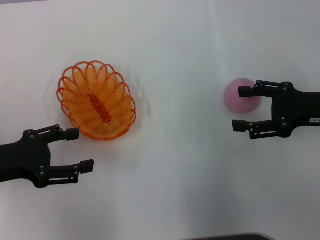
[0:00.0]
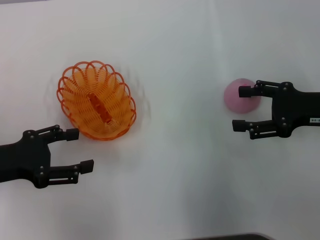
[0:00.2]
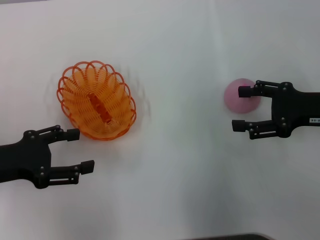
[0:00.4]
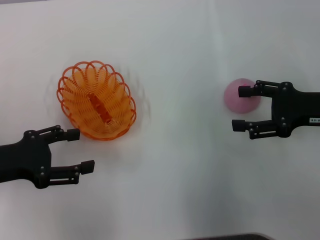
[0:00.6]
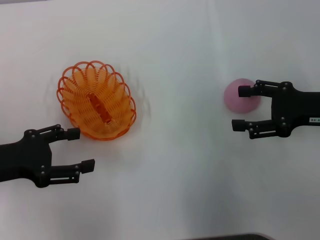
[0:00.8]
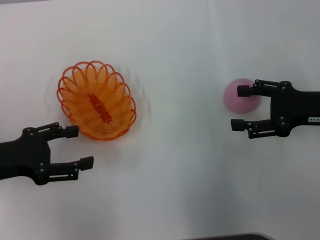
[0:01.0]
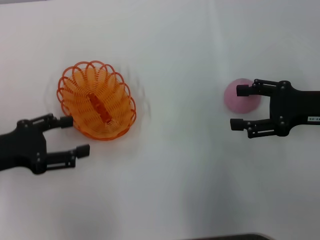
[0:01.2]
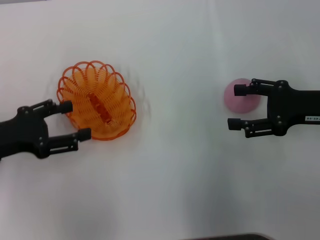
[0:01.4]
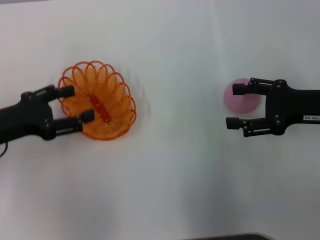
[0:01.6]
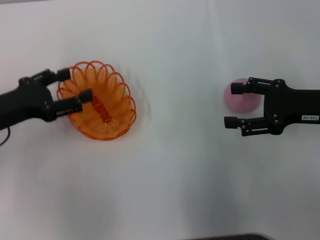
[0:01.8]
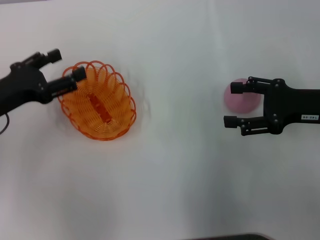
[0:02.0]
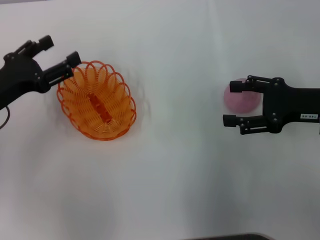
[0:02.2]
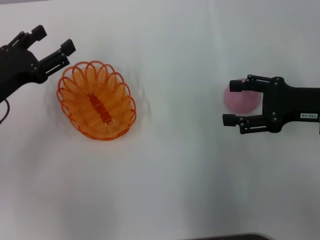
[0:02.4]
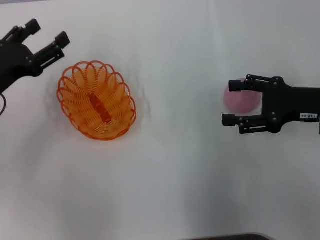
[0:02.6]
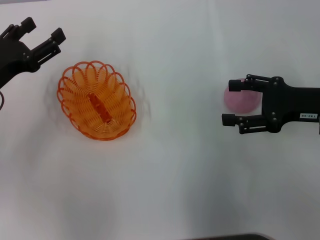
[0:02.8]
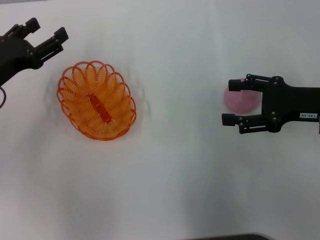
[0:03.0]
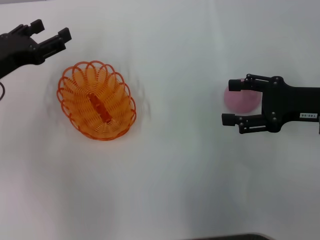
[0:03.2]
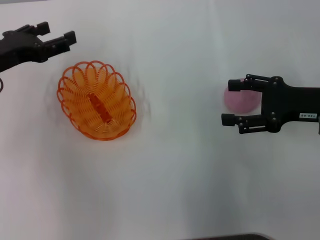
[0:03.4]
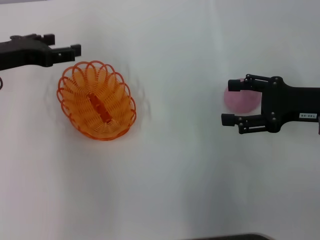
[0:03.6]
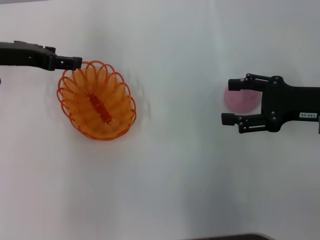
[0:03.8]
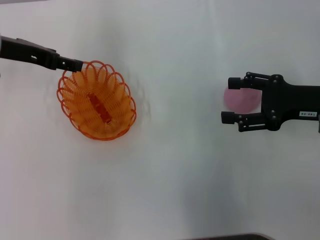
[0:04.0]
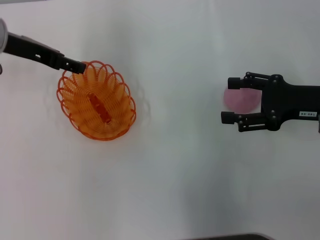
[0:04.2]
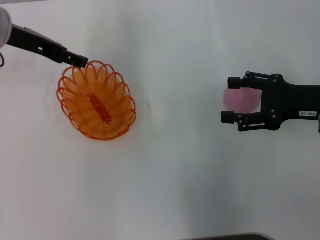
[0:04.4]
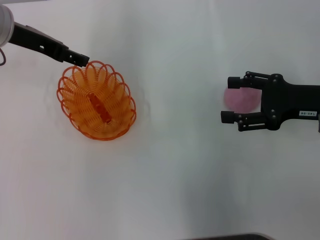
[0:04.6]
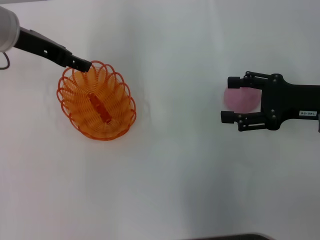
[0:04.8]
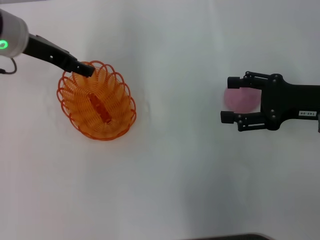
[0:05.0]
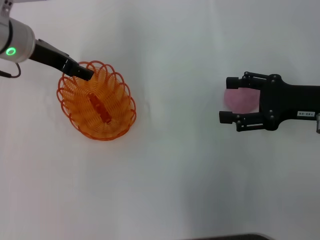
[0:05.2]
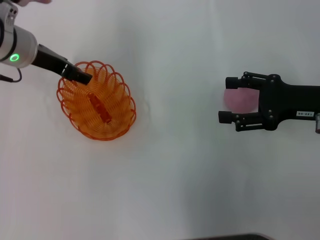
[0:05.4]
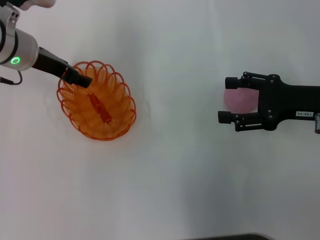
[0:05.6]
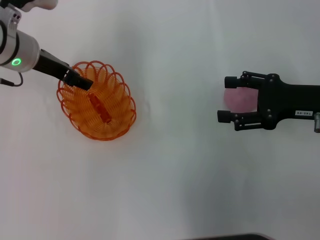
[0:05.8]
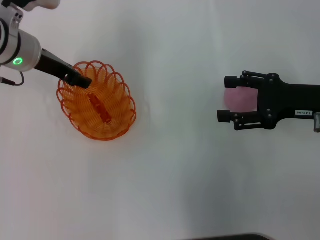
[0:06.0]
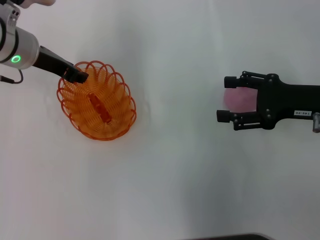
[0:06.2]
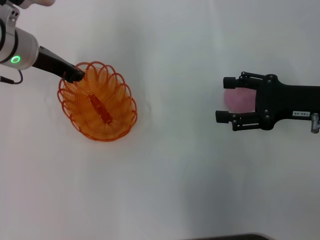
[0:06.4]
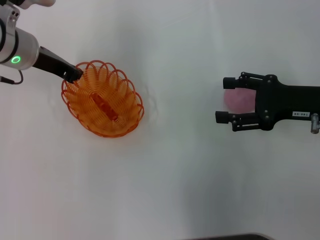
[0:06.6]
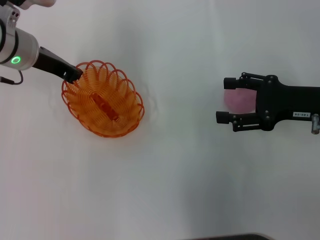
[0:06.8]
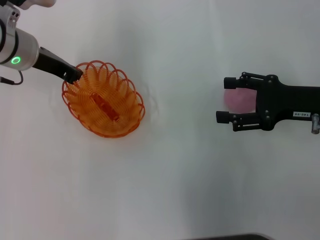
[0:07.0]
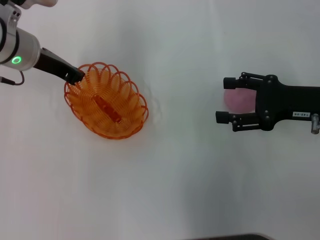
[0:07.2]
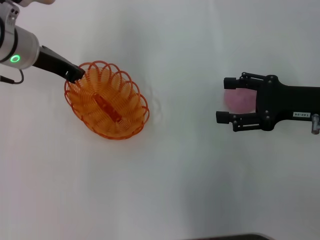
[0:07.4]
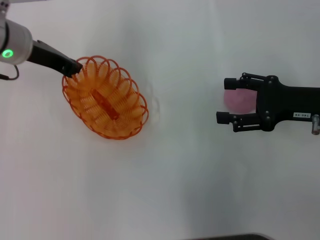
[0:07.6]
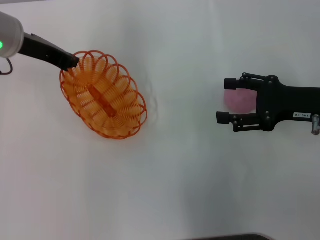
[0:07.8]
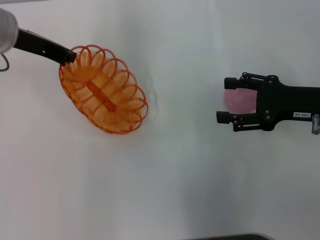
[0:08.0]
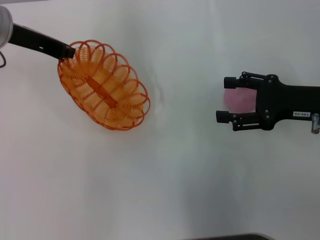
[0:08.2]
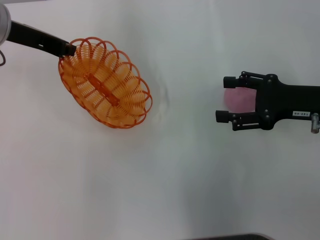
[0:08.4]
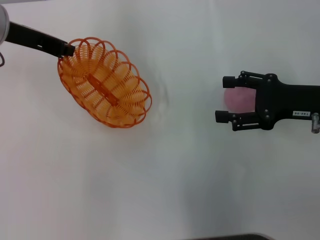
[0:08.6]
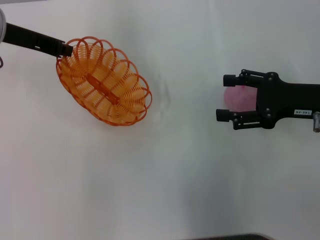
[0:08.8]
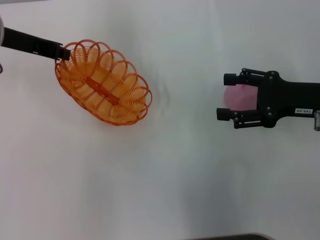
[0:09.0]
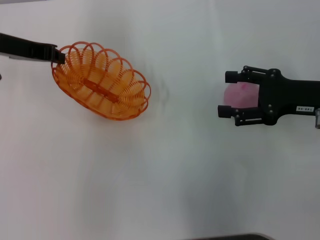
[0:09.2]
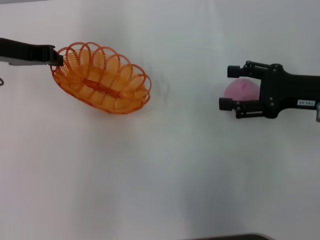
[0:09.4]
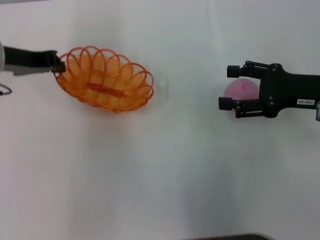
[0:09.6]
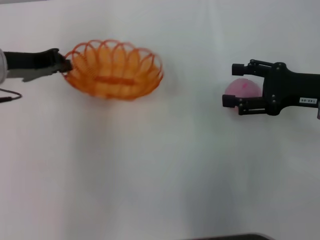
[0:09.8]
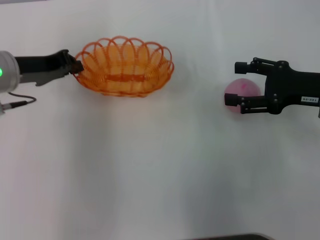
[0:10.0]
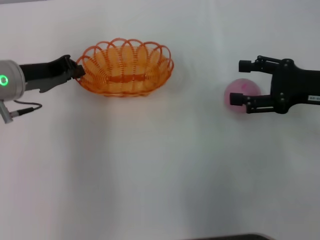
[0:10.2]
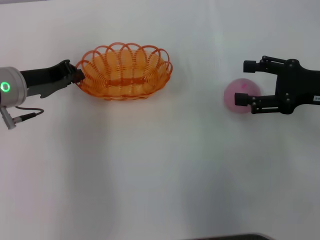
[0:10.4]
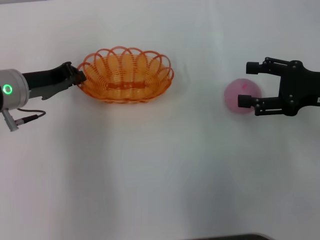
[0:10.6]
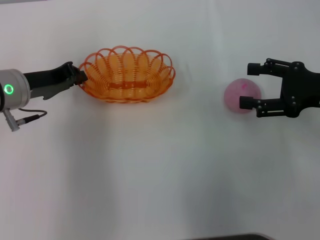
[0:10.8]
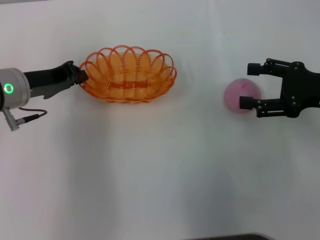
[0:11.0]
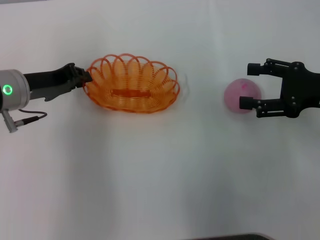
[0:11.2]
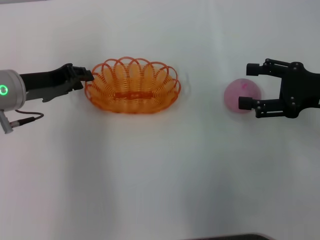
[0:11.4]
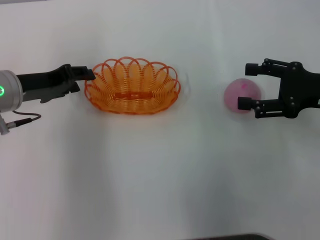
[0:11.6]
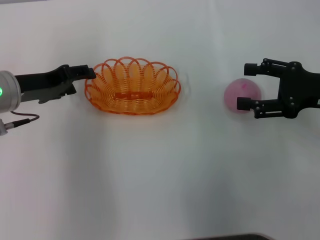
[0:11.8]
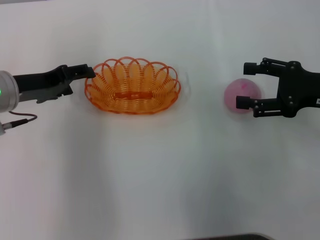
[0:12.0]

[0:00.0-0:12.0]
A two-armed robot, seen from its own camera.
Step, 0:00.0 to 0:07.4: Pick up the basket with the left gripper.
0:00.0 to 0:01.6: The grippers stay close to where they were, moving slightly.
0:03.0 to 0:04.4: The left gripper travels upward, forward and to the right by about 15 cm.
0:04.4 to 0:06.0: The left gripper travels downward by about 5 cm.
0:06.0 to 0:07.6: The left gripper closes.
0:07.6 to 0:09.0: The grippers stay close to where they were, moving slightly.
0:09.0 to 0:10.4: The left gripper goes approximately 10 cm downward.
0:10.4 to 0:12.0: The left gripper opens up.

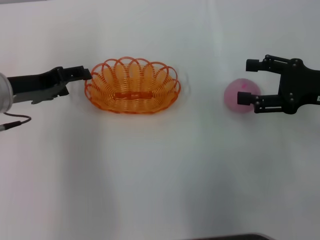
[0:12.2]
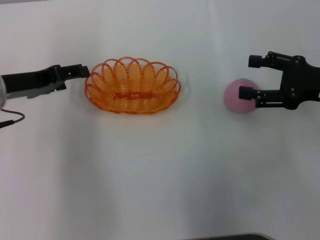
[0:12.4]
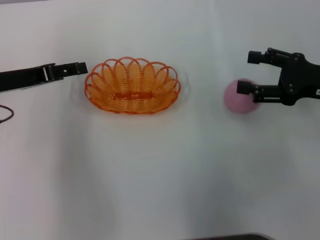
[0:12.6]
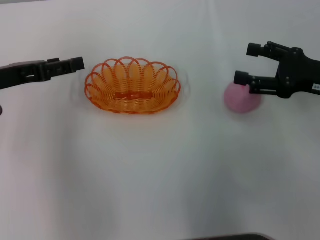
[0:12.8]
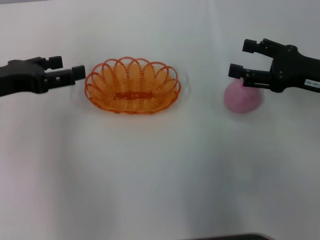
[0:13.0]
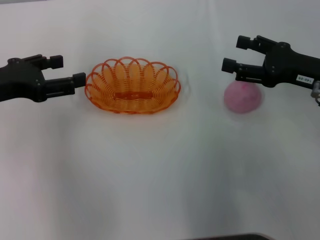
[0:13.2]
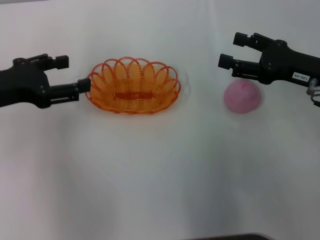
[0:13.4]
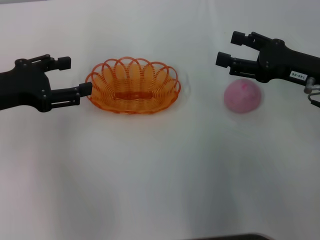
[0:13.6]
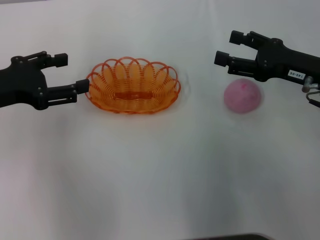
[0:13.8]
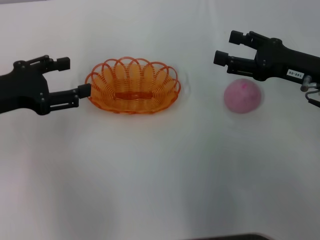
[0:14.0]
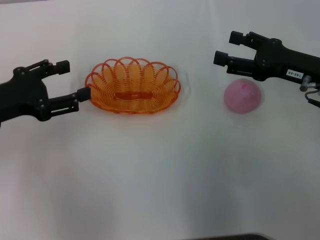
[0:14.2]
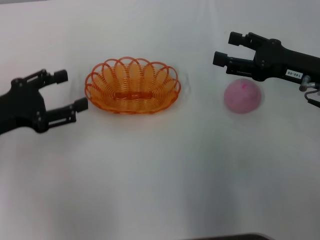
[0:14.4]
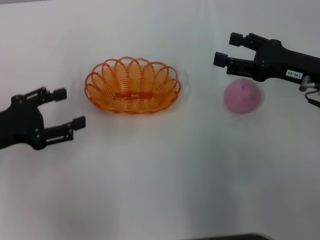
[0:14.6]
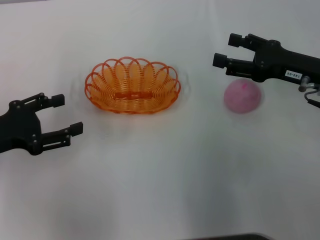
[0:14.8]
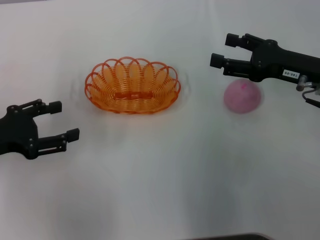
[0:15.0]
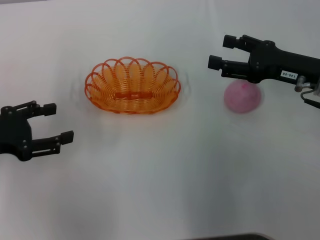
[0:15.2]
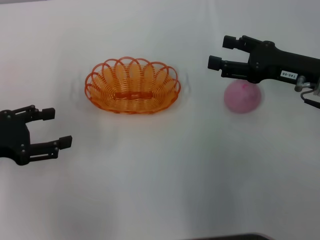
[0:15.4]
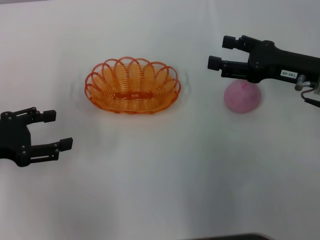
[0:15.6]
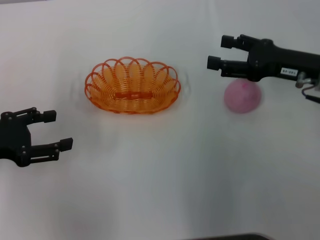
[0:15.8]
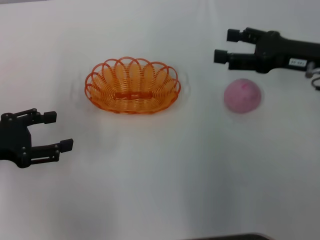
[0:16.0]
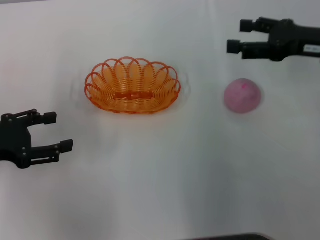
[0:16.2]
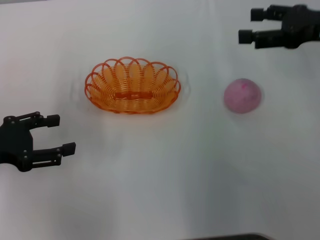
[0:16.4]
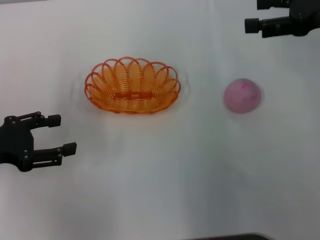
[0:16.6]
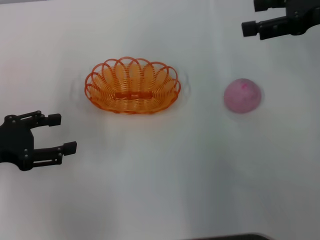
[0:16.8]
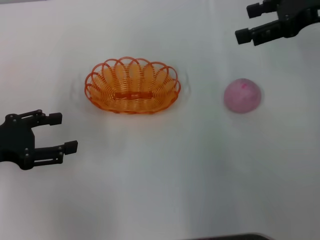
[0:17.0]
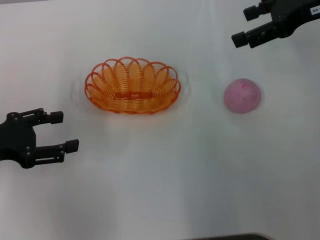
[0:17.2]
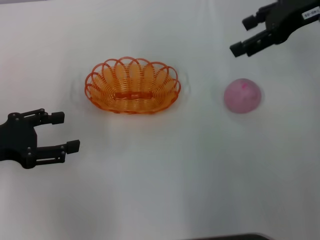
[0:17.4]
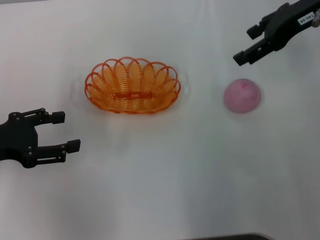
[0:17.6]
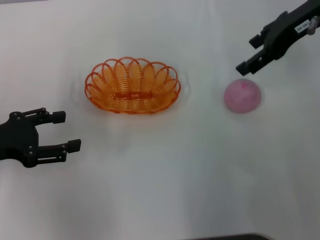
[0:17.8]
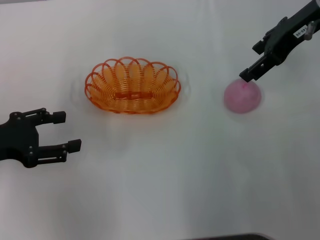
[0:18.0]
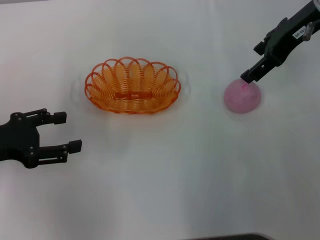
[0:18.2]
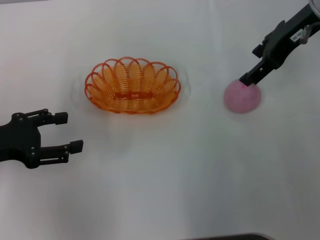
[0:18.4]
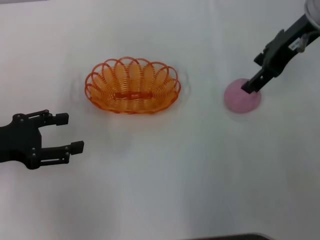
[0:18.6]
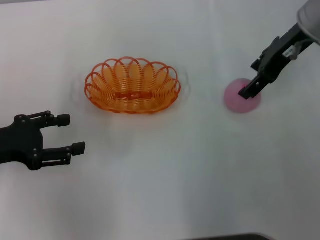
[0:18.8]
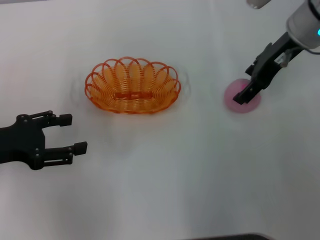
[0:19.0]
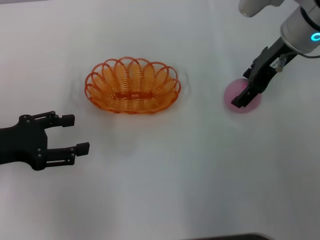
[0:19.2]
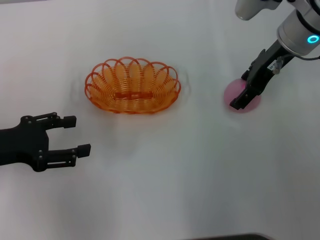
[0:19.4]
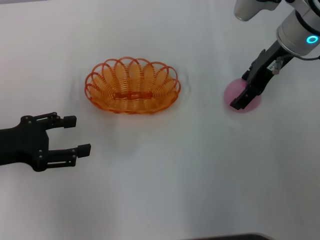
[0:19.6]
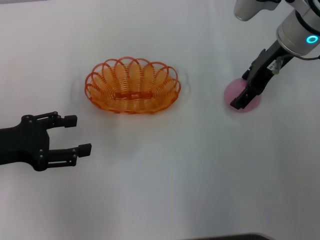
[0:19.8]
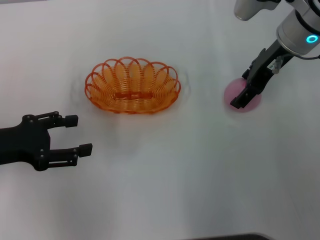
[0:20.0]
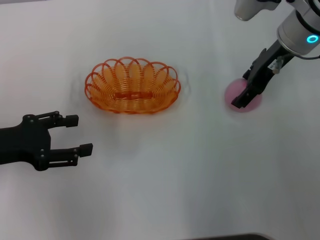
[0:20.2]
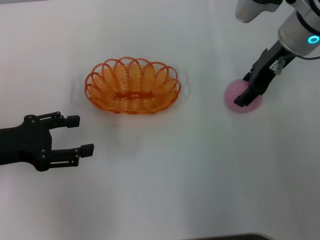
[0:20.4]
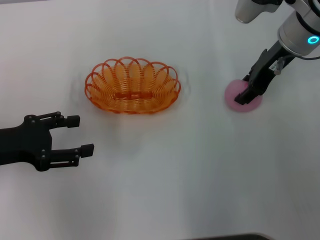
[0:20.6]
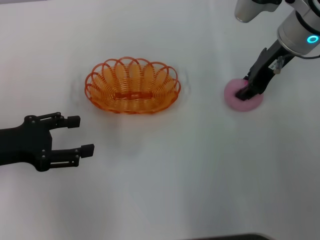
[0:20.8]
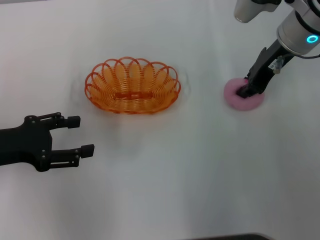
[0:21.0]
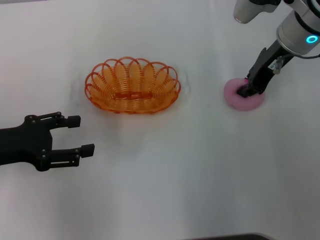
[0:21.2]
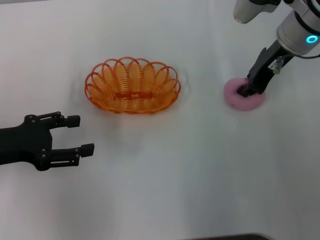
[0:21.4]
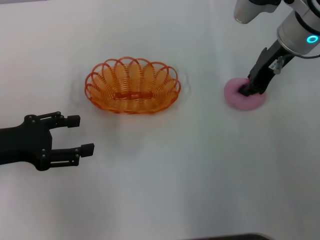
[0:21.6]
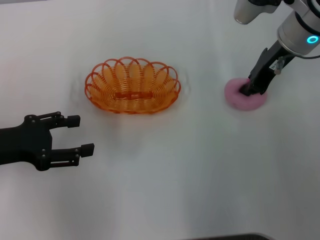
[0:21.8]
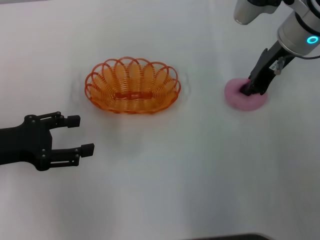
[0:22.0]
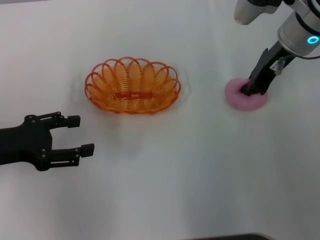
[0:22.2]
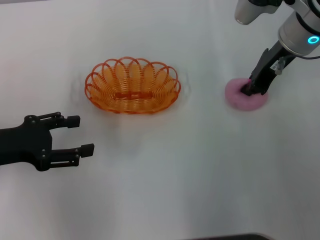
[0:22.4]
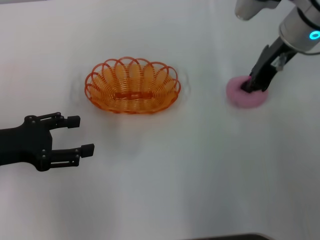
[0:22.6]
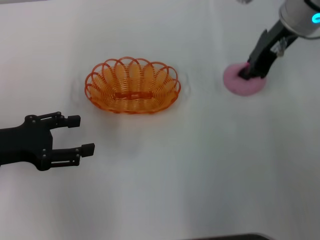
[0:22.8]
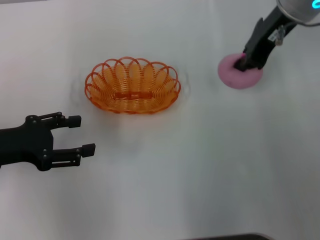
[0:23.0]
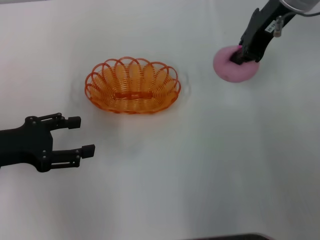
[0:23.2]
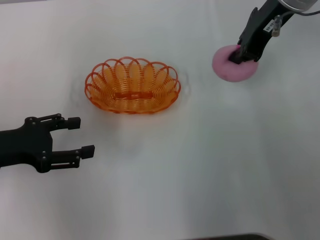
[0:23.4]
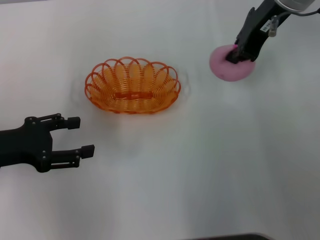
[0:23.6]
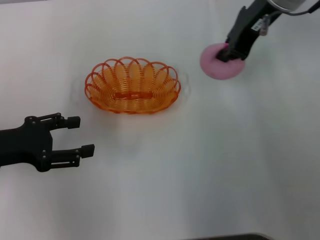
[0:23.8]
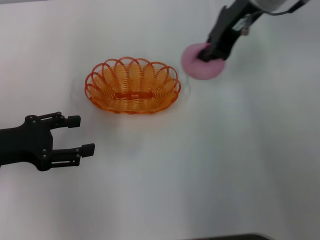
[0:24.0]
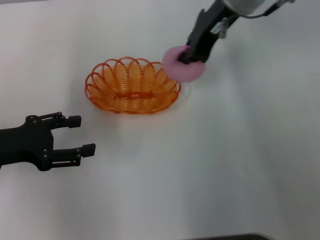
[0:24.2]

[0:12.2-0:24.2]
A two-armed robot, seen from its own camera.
Step, 0:12.2 to 0:23.0: Pick up the peach with the right gripper.
0:12.2 to 0:13.8: The left gripper changes place by about 5 cm.
0:13.8 to 0:15.2: The left gripper ends up roughly 5 cm from where it was.
0:15.2 to 0:16.6: The right gripper travels upward by roughly 10 cm.
0:16.6 to 0:18.2: The right gripper shifts approximately 10 cm to the left.
0:18.2 to 0:19.8: The right gripper moves downward, some 5 cm.
0:19.8 to 0:21.2: The right gripper closes up.
0:21.2 to 0:22.6: Neither gripper changes place.
0:22.6 to 0:24.2: The right gripper goes roughly 10 cm to the left and upward.
